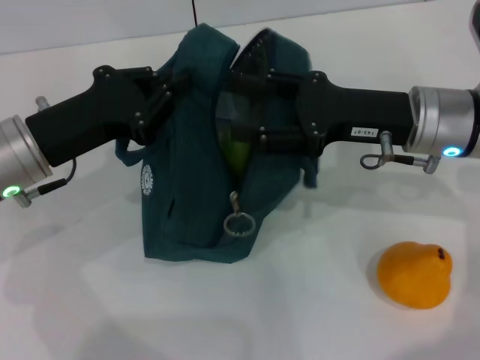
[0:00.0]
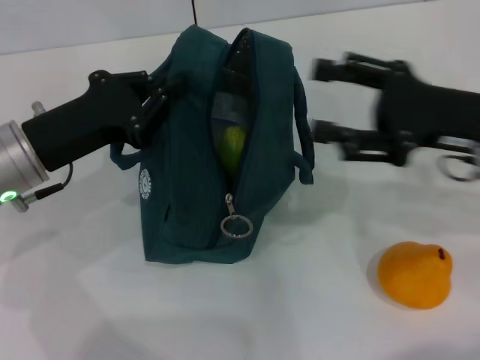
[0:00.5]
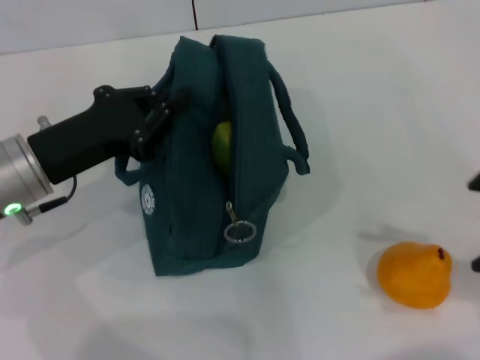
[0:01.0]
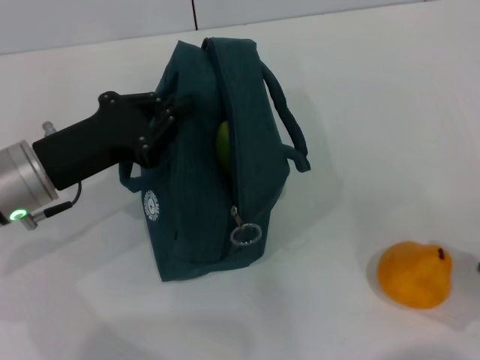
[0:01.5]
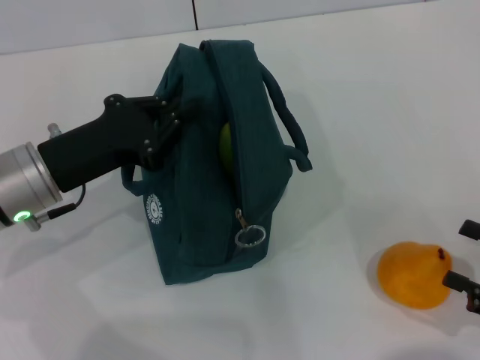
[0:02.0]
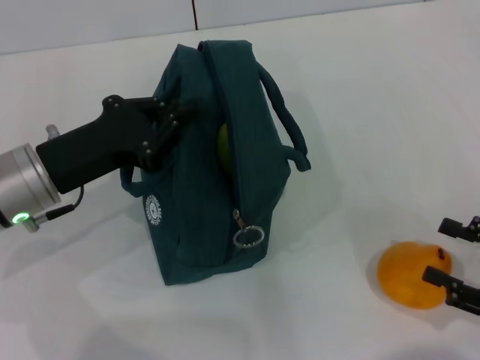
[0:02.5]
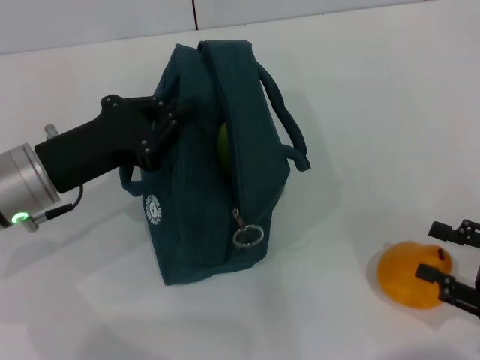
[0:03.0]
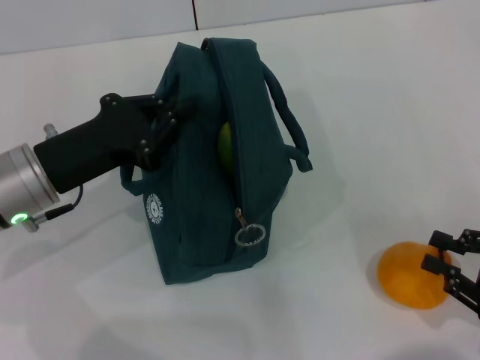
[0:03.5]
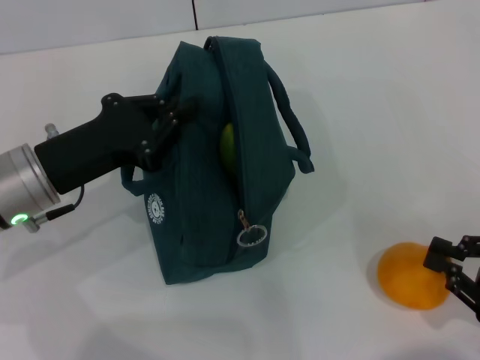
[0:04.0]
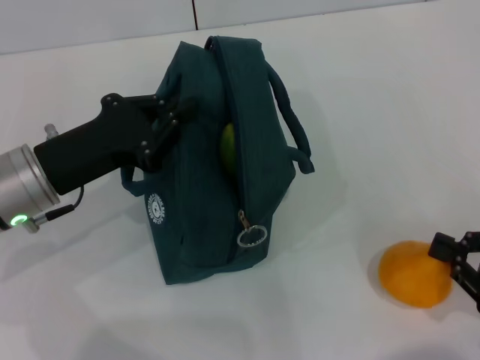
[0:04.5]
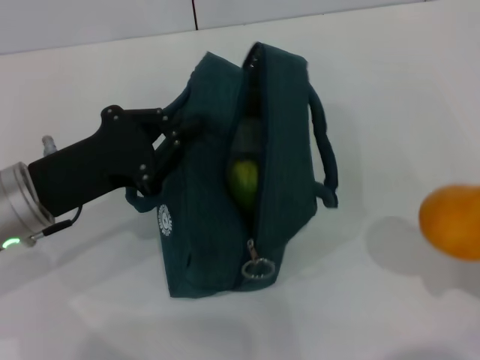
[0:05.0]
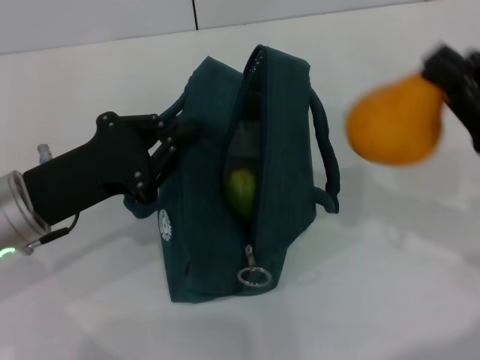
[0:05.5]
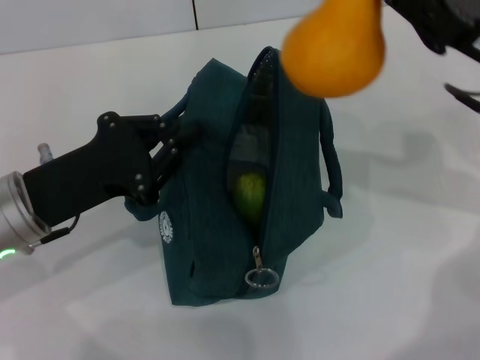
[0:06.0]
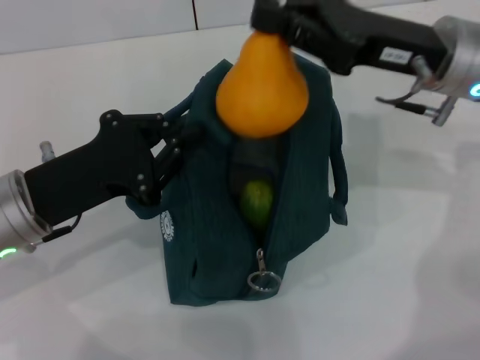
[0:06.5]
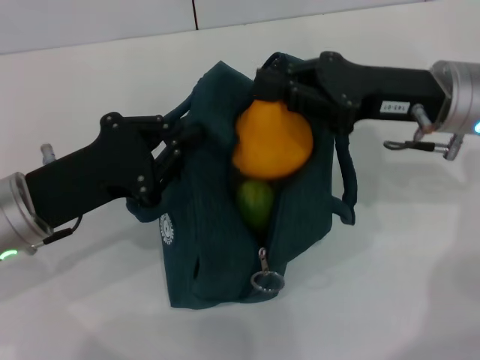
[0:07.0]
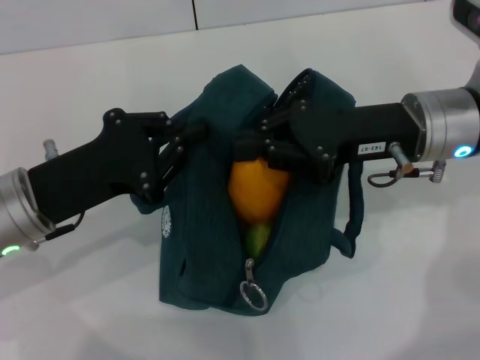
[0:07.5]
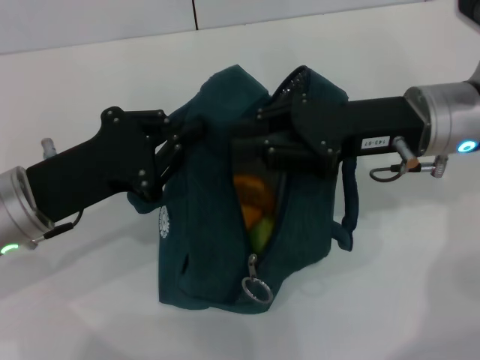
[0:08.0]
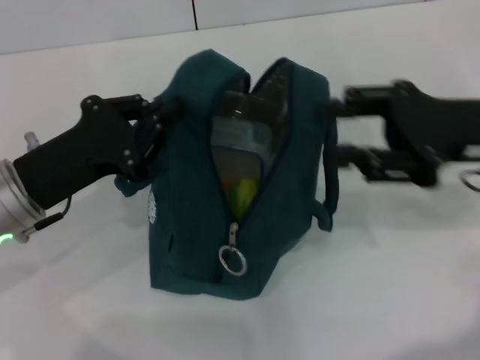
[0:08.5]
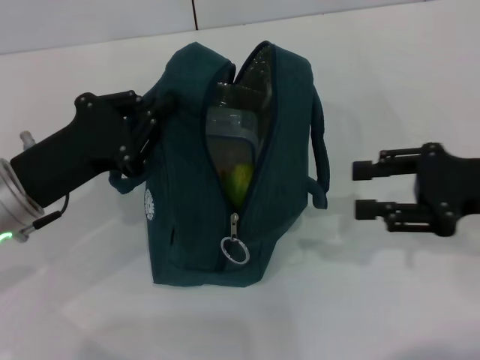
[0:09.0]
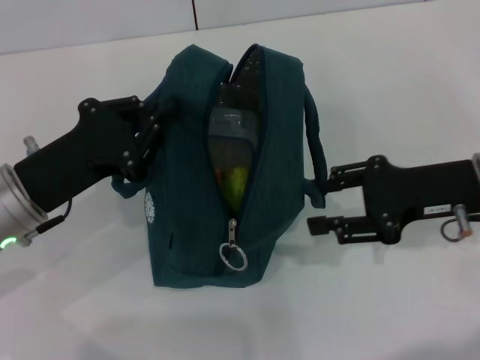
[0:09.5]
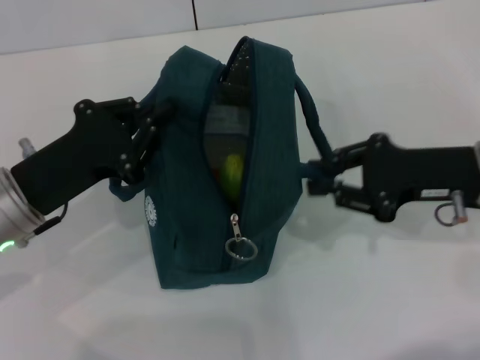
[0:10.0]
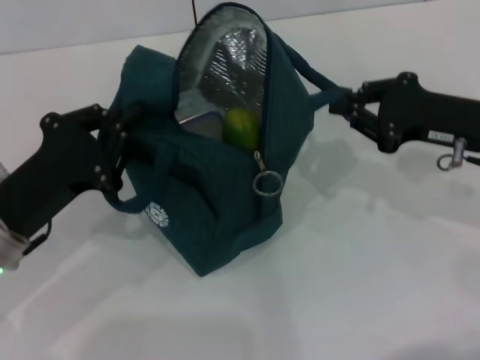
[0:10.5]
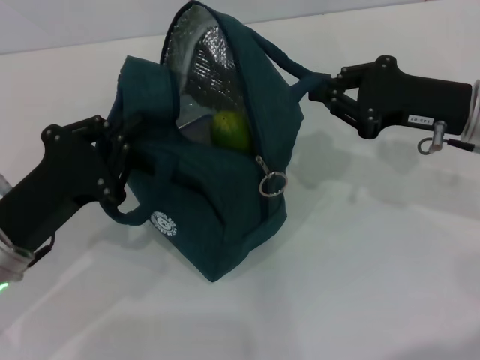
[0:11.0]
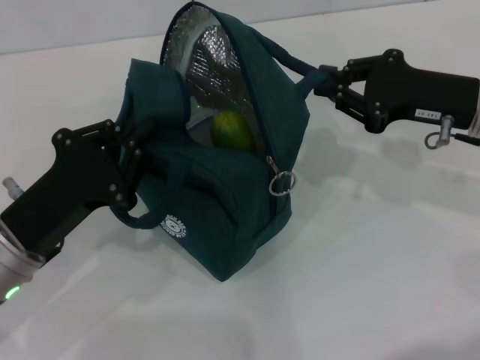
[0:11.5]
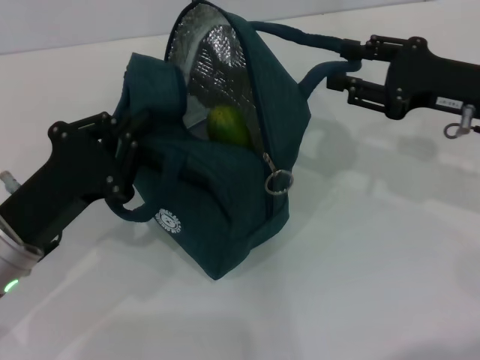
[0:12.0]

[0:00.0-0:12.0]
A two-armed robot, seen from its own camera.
Step, 0:00.5 to 0:04.5: Grab the pear with your right hand.
0:00.0 to 0:02.0: The right gripper heads backward and to the right, covering about 25 cm.
0:02.0 to 0:04.0: The right gripper closes.
0:04.0 to 0:06.0: The right gripper travels forward, upward and to the left by some 25 cm.
0:06.0 to 0:08.0: The right gripper heads to the left, covering roughly 5 cm.
0:08.0 to 0:10.0: The right gripper heads to the right, covering roughly 5 cm, and opens up.
0:10.0 to 0:12.0: The right gripper changes place by some 5 cm, and closes, then opens again.

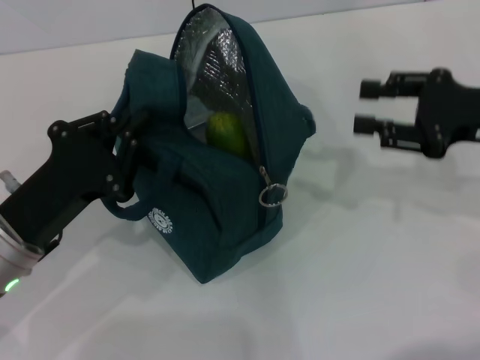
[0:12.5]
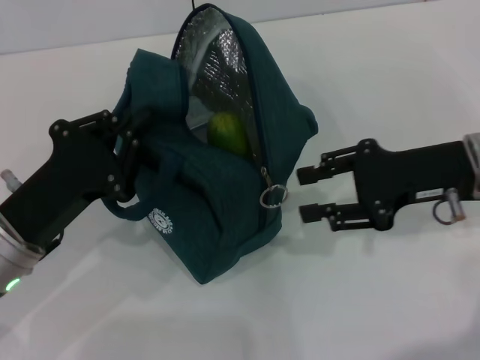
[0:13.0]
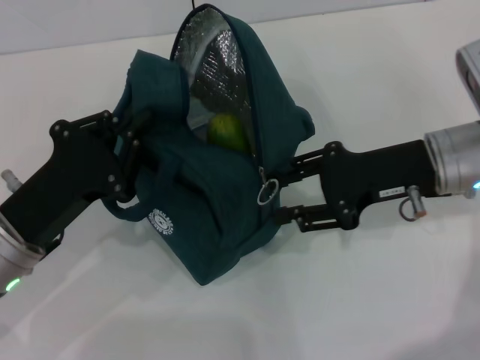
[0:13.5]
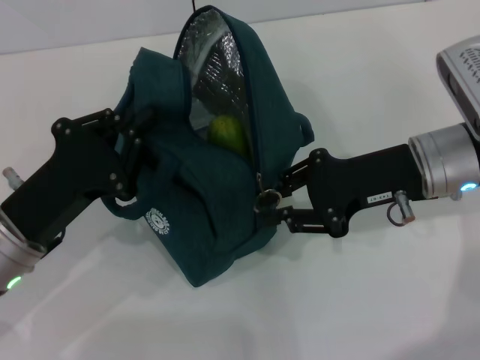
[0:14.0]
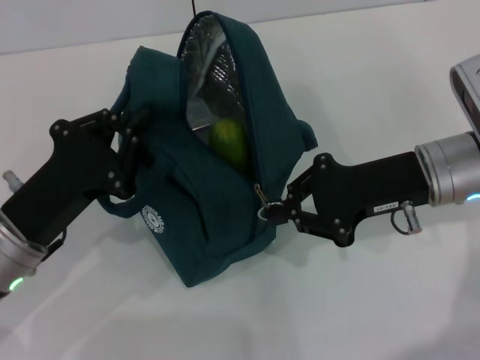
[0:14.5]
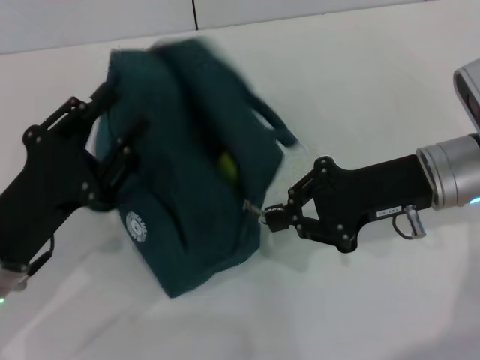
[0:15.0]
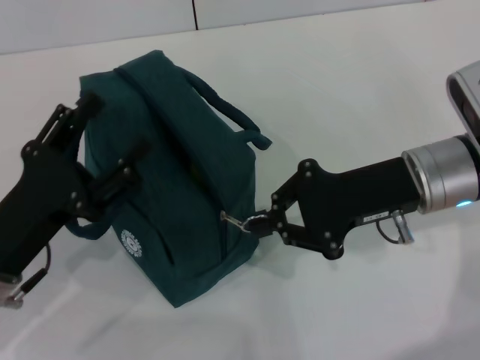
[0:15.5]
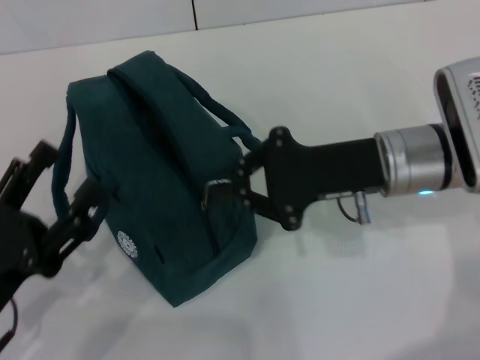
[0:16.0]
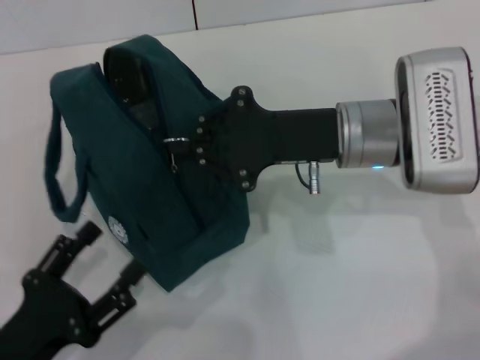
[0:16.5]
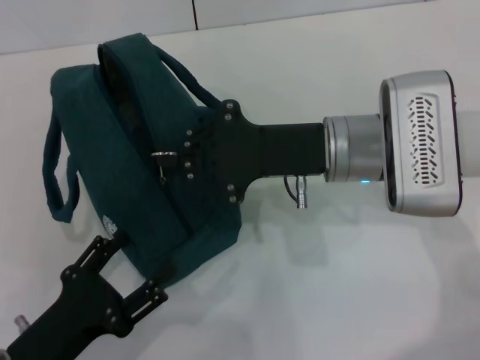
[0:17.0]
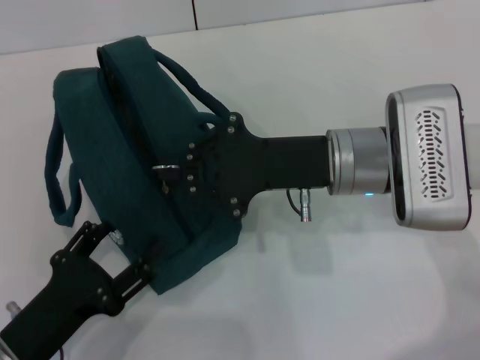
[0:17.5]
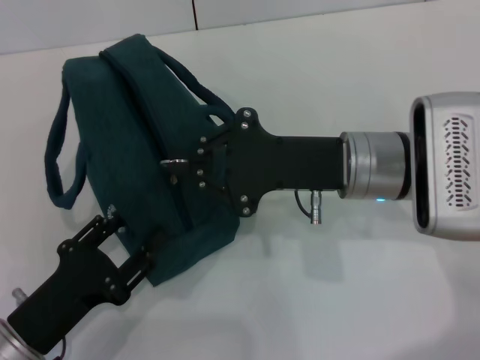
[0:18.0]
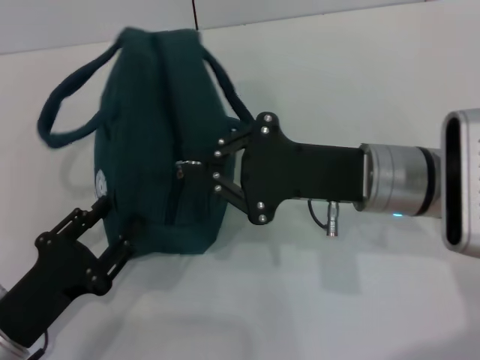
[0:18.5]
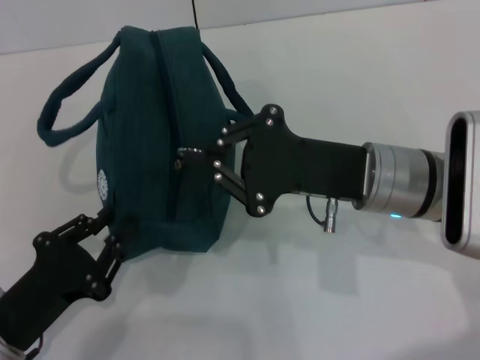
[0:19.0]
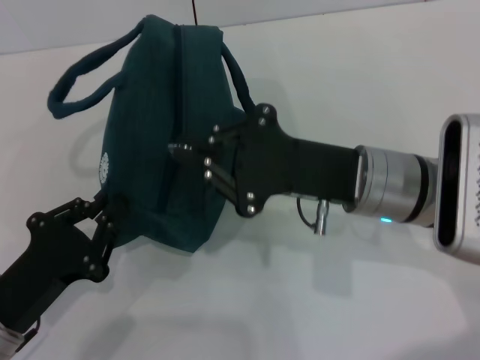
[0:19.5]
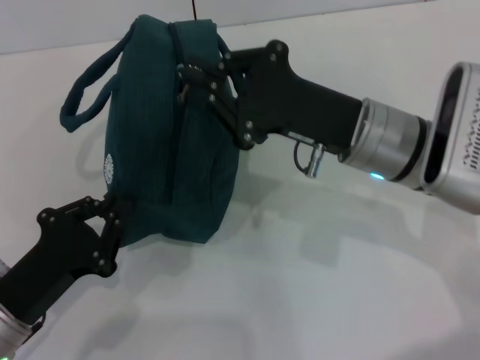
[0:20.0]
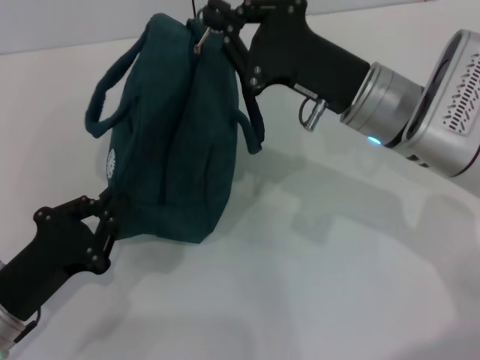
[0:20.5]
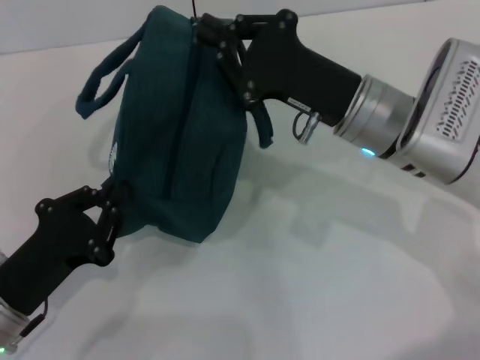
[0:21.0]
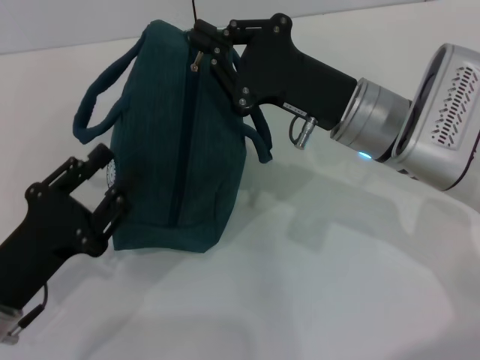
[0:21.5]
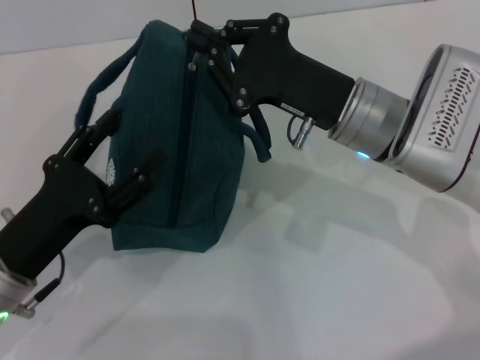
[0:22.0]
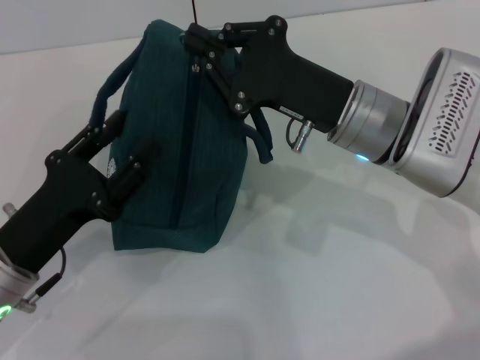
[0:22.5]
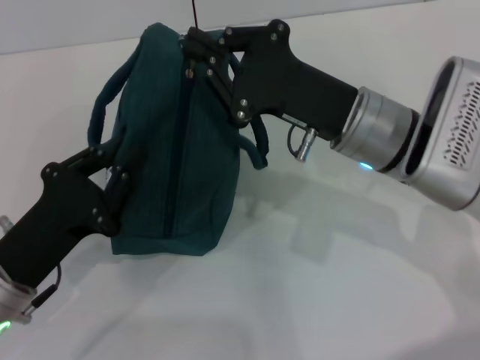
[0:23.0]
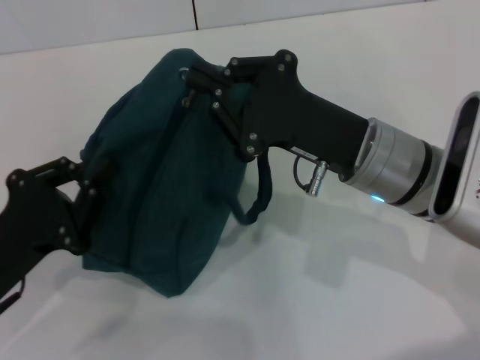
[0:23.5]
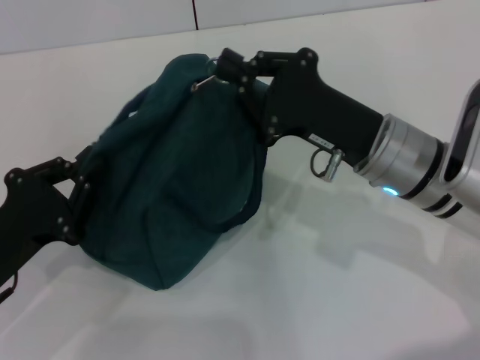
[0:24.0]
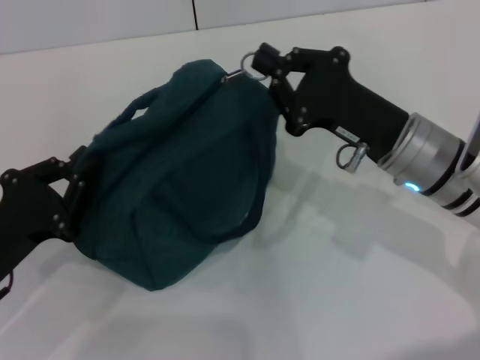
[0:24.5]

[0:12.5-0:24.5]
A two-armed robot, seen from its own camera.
Step, 0:12.5 to 0:15.0: Hold the lunch bag with your left hand.
0:12.5 to 0:14.5: The right gripper heads to the left, covering roughly 10 cm, and closes.
0:14.5 to 0:16.5: The left gripper travels backward by approximately 10 cm, and opens. Meanwhile the right gripper shifts approximately 5 cm to the left.
0:16.5 to 0:18.5: The left gripper closes.
0:18.5 to 0:20.5: The left gripper closes its fingers.
0:20.5 to 0:22.5: The left gripper changes place by approximately 5 cm, and opens its fingers.
0:22.5 to 0:24.5: The left gripper closes its fingers. The right gripper shifts by roughly 5 cm.

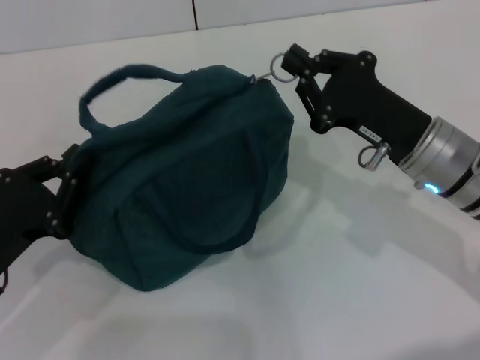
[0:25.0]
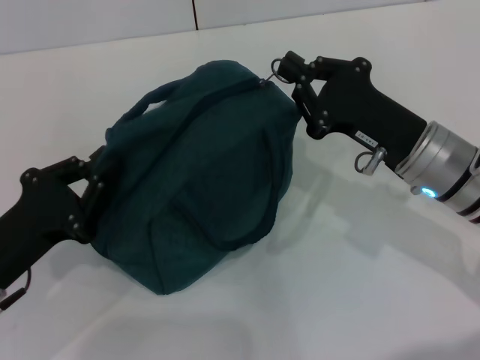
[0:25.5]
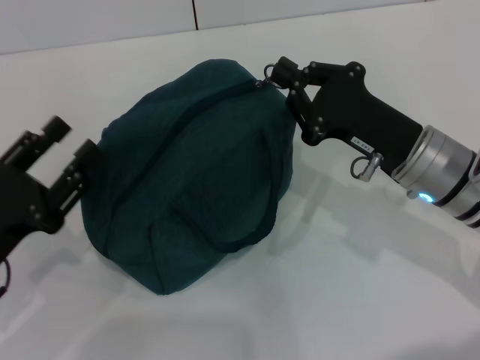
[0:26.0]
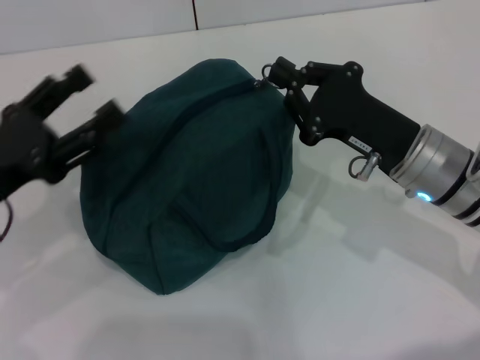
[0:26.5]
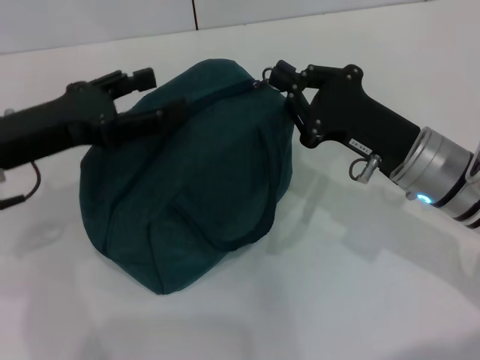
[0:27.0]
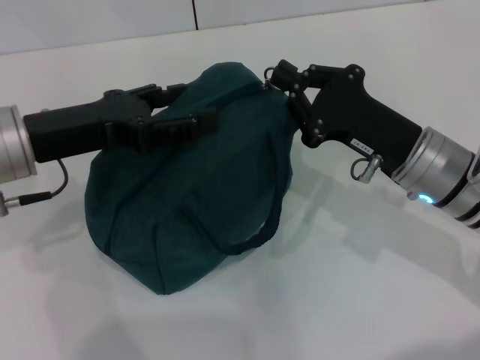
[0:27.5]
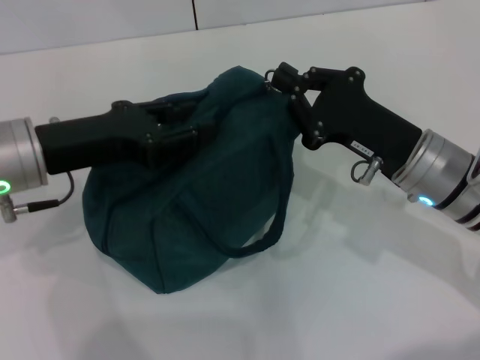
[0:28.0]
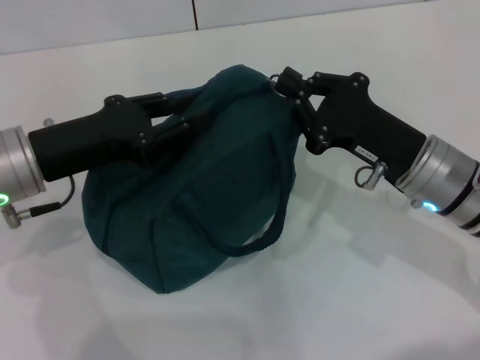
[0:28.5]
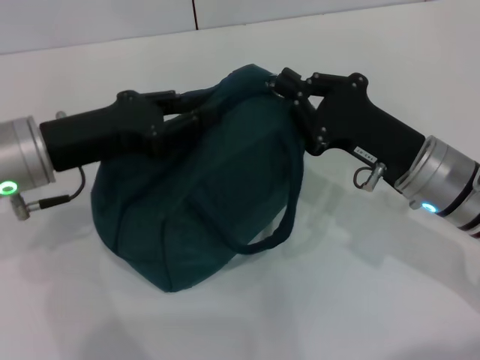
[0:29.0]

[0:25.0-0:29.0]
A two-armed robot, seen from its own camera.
0:25.0 to 0:27.0: The left gripper heads upward and forward, covering about 15 cm, and opens up.
0:27.0 to 0:29.0: The left gripper closes.
